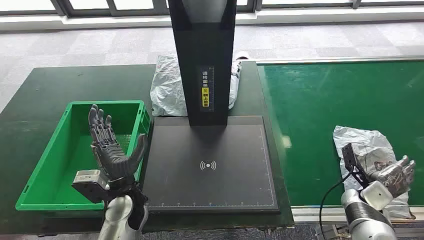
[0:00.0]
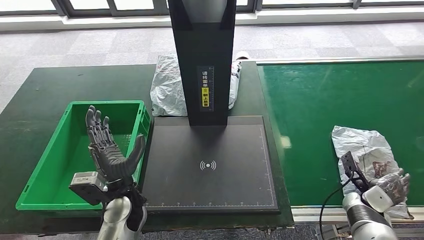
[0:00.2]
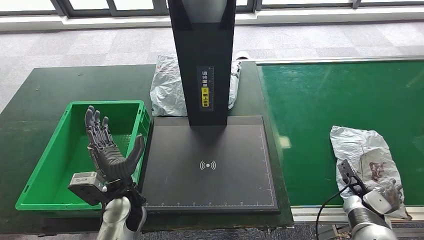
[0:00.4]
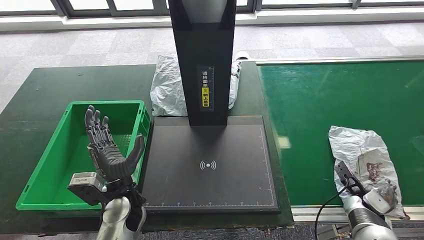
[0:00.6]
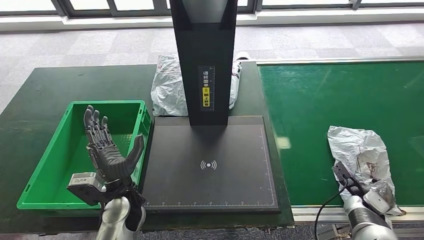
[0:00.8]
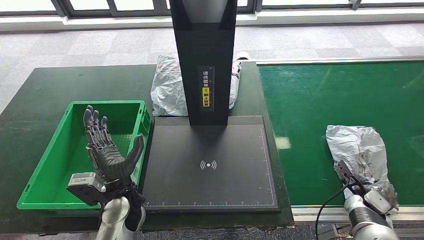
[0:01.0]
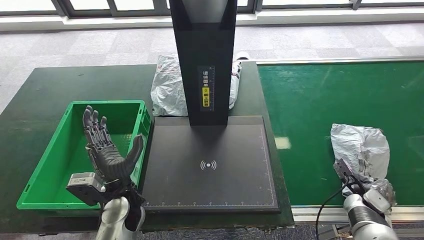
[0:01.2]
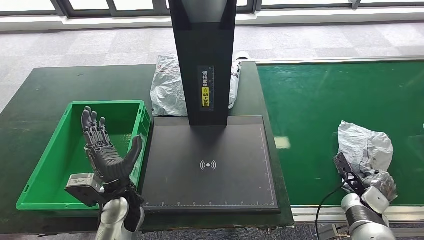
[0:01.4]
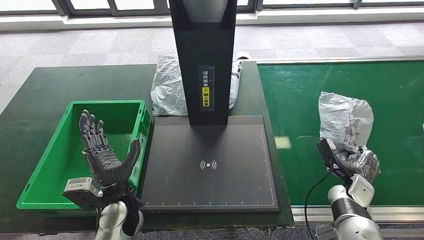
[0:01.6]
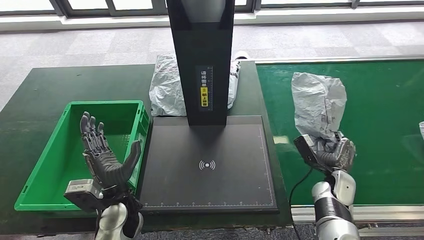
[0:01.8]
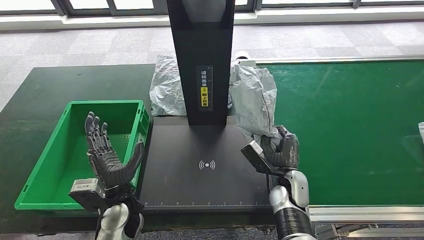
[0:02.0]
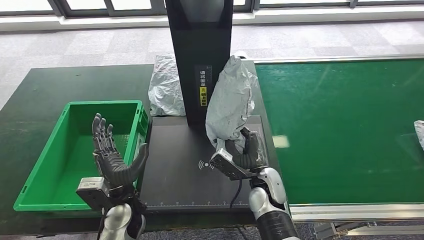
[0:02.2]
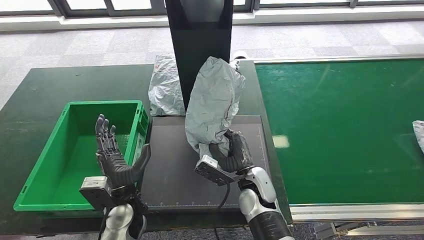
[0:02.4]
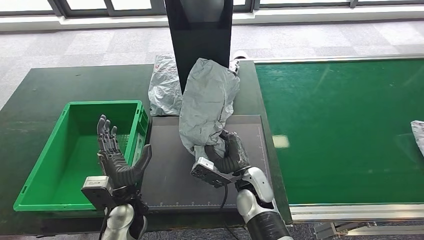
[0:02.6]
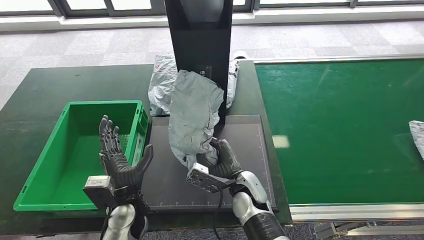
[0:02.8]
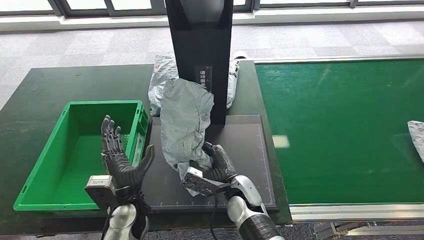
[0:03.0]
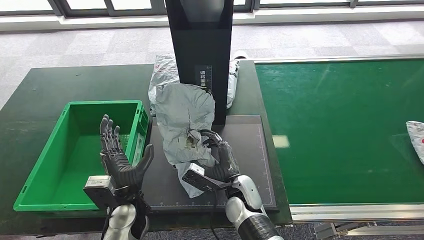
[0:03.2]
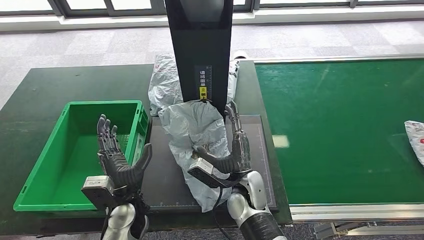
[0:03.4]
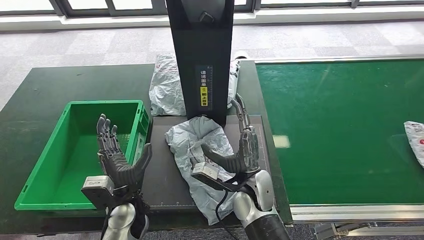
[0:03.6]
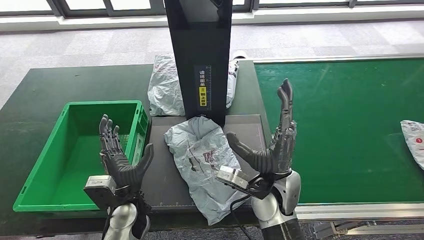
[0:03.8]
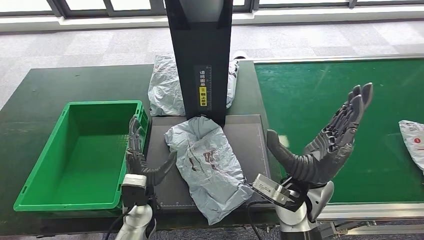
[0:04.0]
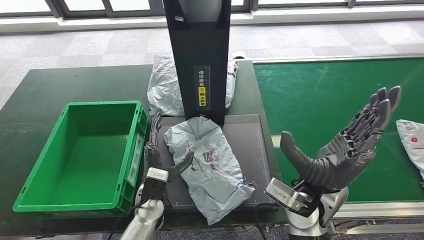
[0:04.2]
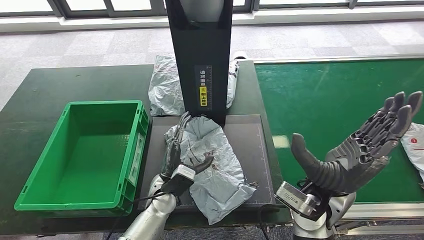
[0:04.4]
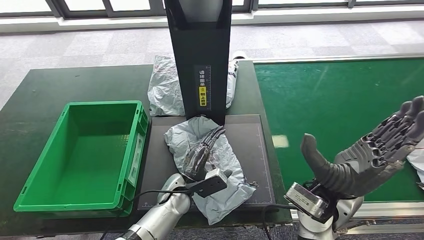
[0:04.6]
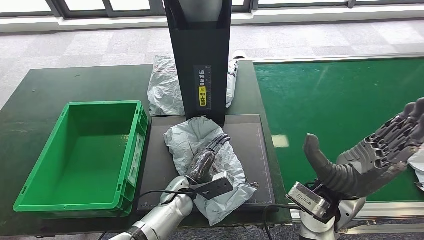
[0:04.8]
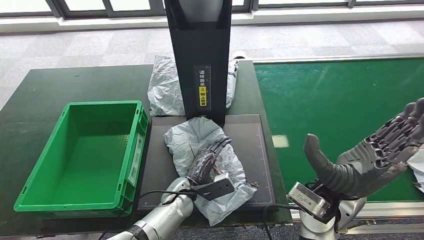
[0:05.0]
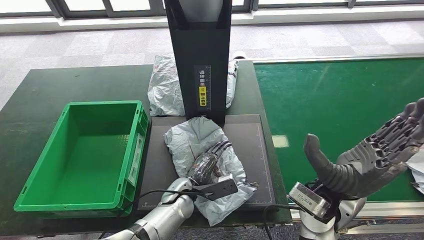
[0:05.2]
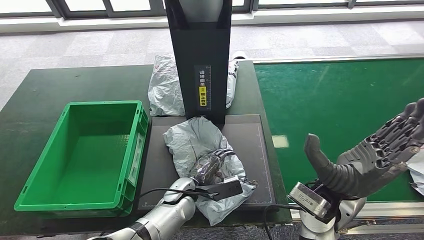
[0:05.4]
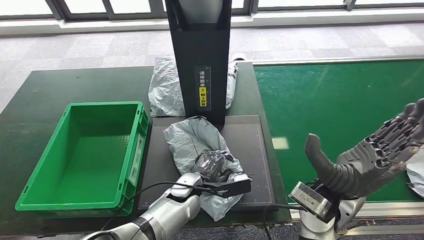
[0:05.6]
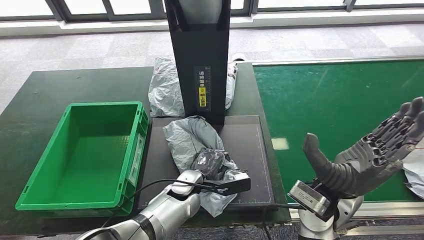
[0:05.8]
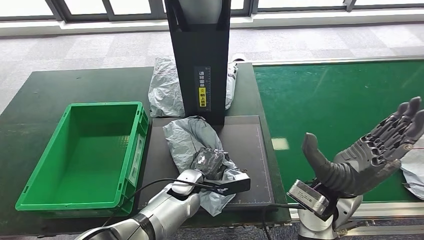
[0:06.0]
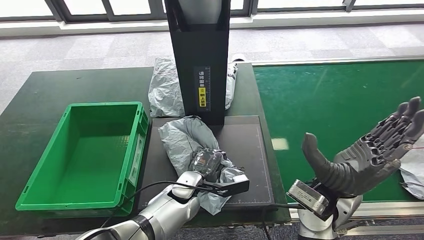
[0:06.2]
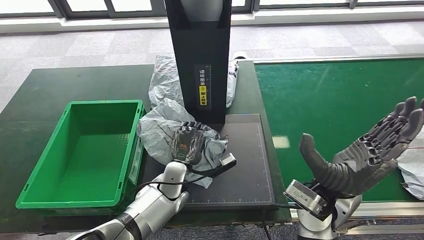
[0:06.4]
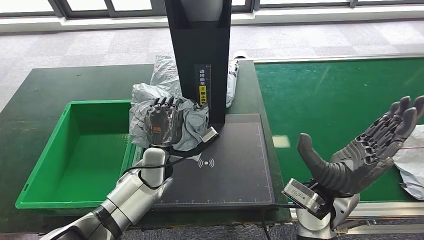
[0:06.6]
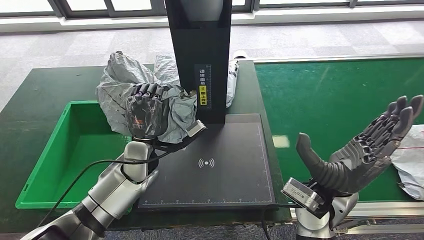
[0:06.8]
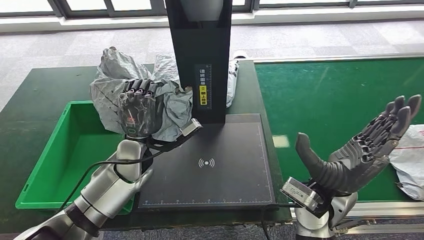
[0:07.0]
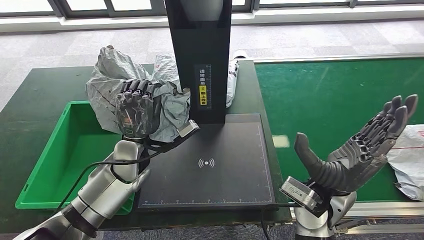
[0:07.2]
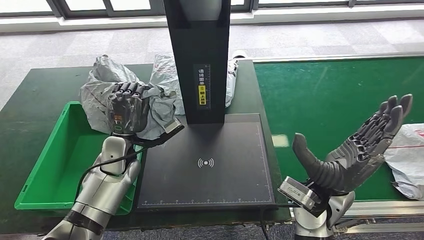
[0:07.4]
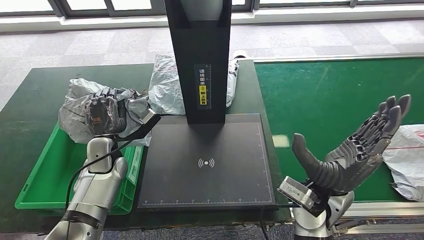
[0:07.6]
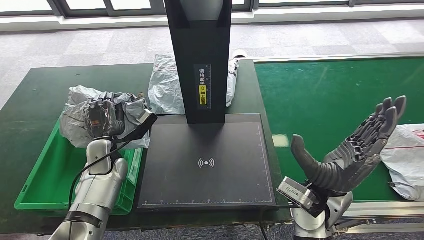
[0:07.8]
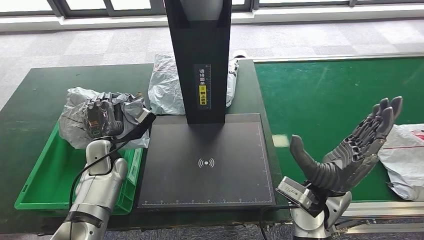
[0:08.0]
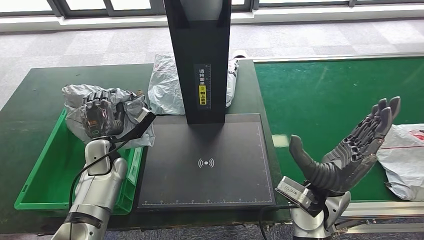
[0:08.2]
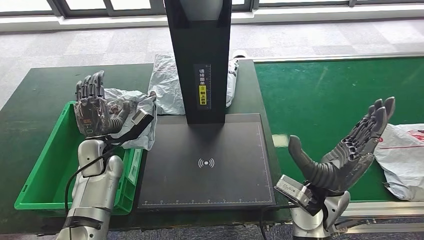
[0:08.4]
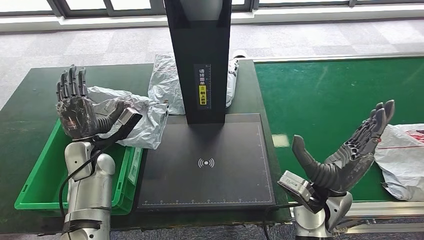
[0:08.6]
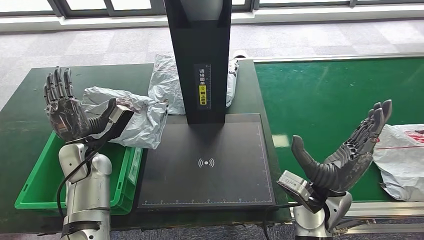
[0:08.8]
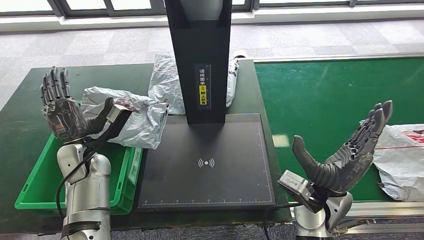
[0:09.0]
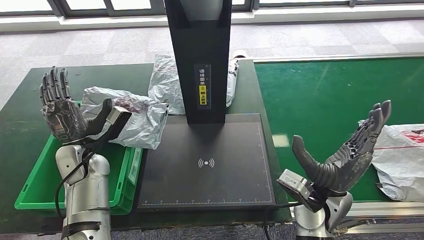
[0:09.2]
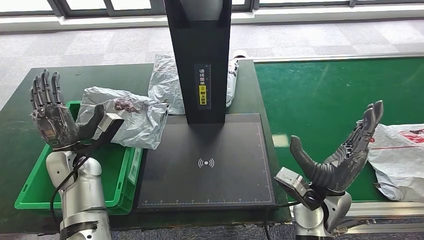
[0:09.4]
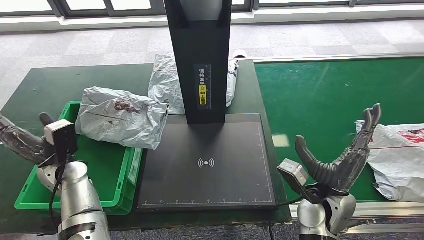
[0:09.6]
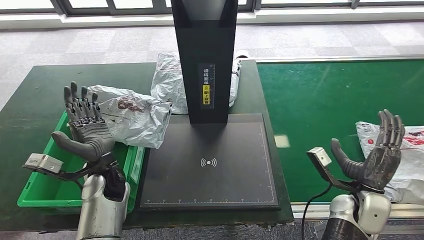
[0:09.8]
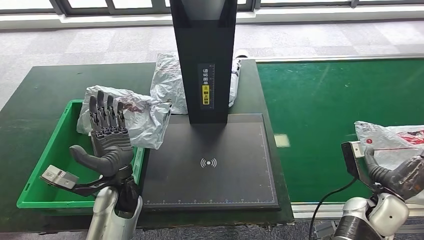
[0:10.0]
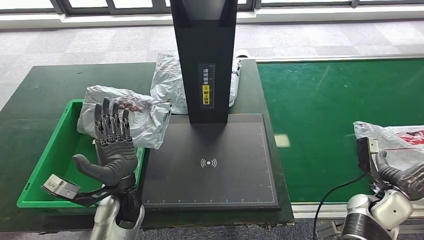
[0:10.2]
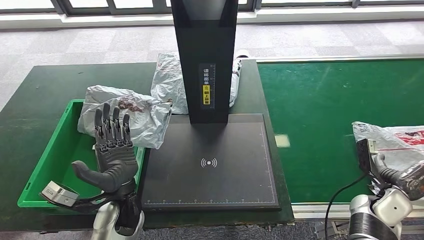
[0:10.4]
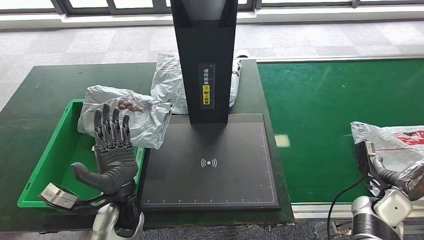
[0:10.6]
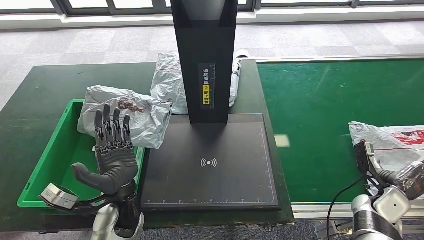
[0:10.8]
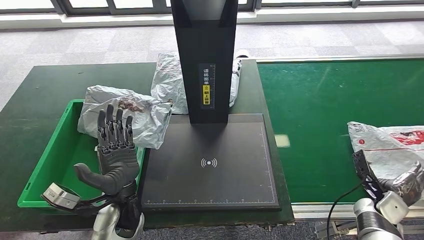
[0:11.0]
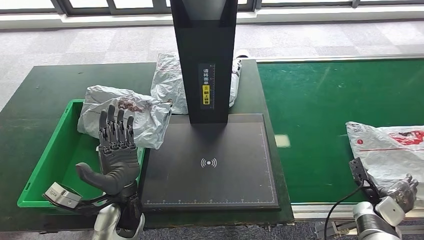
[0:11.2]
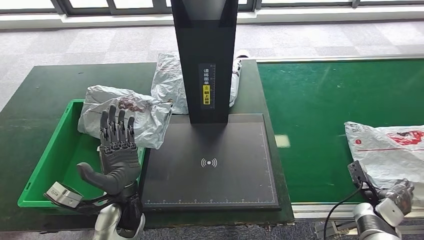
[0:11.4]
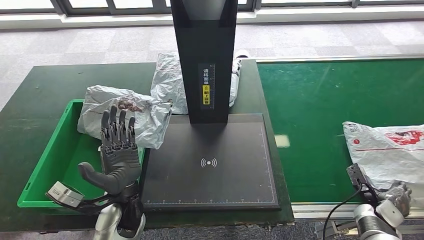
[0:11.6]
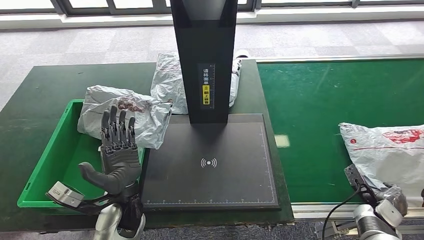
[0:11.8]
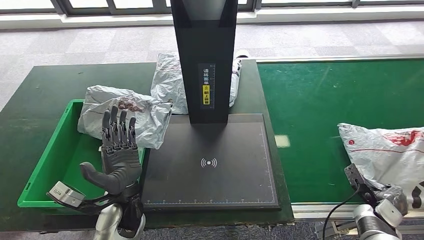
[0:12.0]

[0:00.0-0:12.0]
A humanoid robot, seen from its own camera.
Step, 0:00.0 to 0:01.8: Take the parcel off the conveyor belt.
Step, 0:02.2 to 0:04.2: Place the parcel onto the inbound machine.
Step, 0:04.6 to 0:06.8: Pick up the parcel from the inbound machine.
Step, 0:07.0 to 0:09.0: Put the parcel inside the courier box.
0:07.6 to 0:09.0: The left hand ends up approximately 5 cm from where it was.
0:10.4 to 0:12.0: The right hand moves downward, roughly 5 cm.

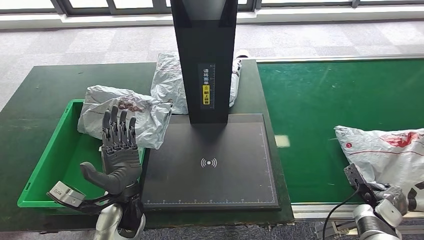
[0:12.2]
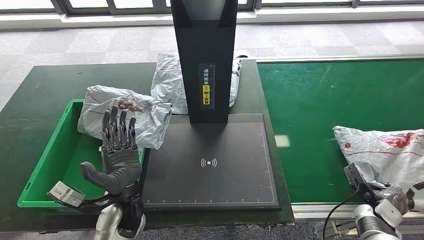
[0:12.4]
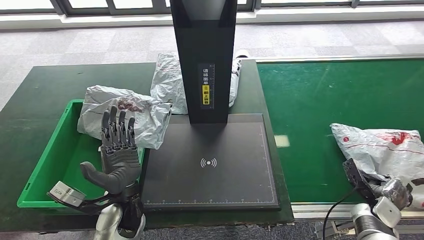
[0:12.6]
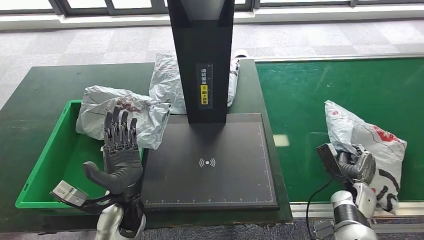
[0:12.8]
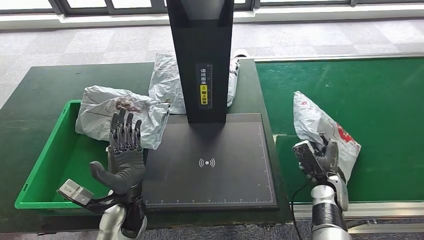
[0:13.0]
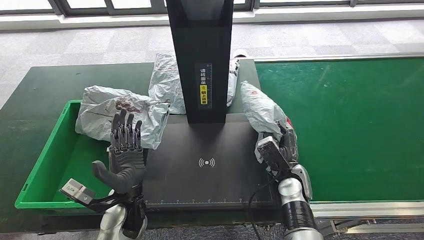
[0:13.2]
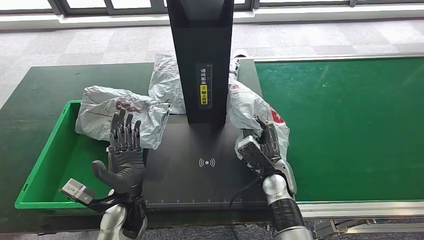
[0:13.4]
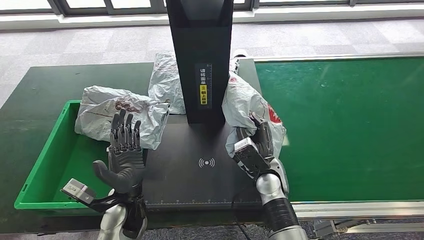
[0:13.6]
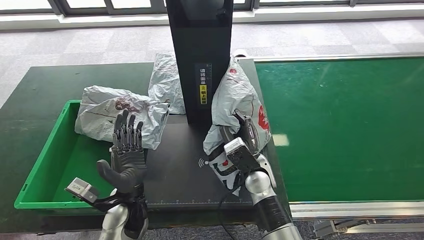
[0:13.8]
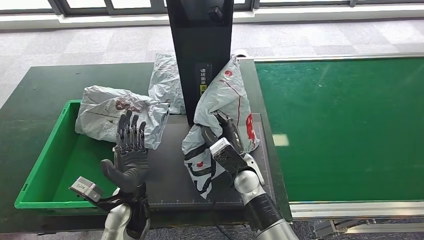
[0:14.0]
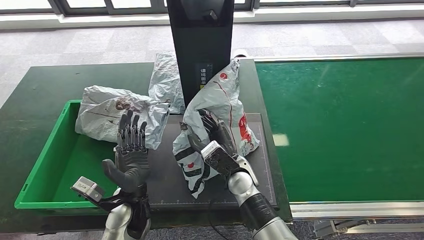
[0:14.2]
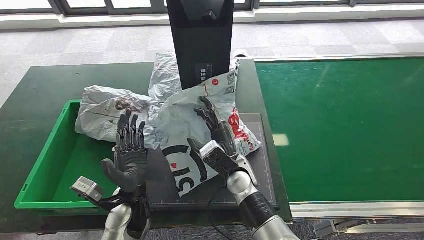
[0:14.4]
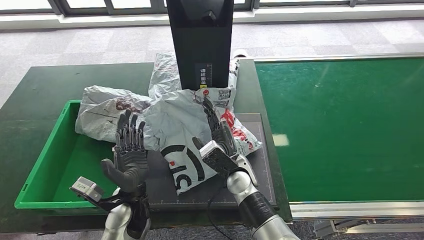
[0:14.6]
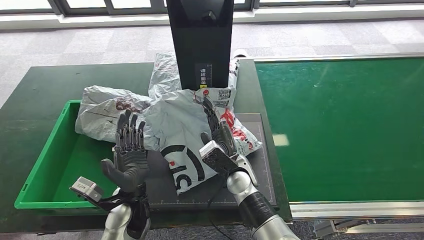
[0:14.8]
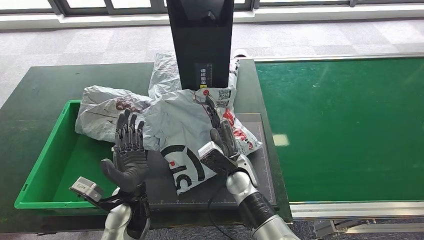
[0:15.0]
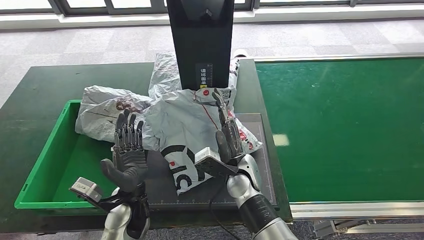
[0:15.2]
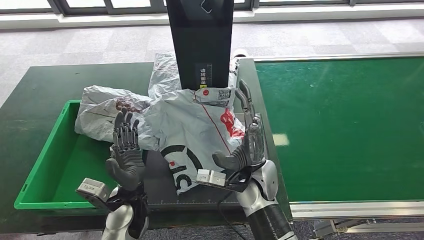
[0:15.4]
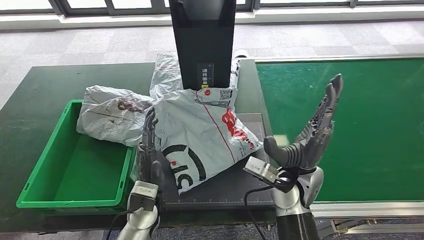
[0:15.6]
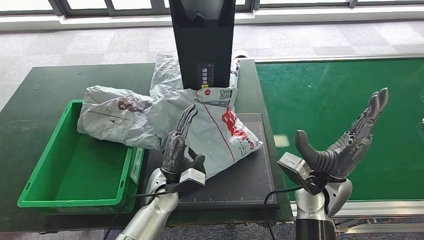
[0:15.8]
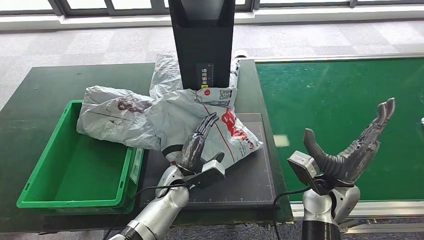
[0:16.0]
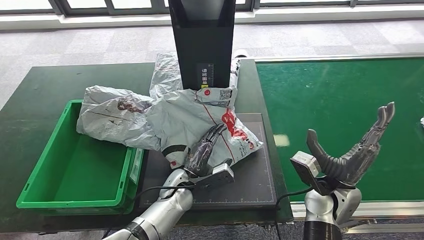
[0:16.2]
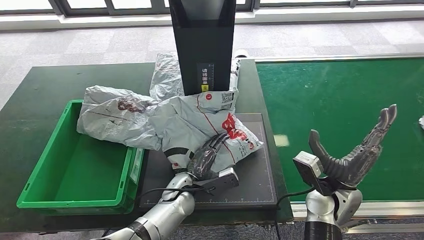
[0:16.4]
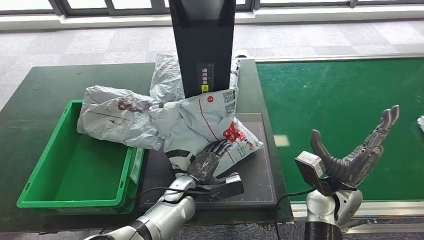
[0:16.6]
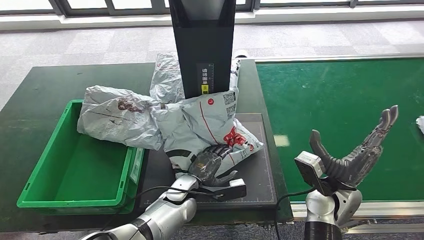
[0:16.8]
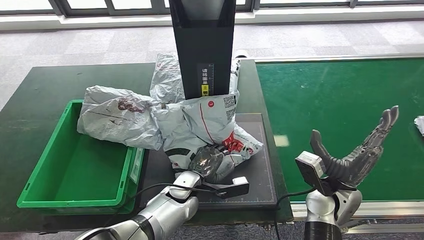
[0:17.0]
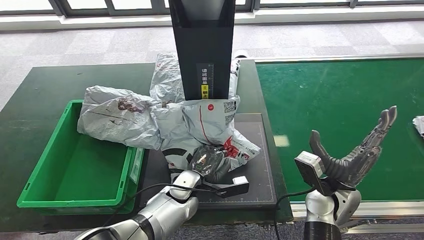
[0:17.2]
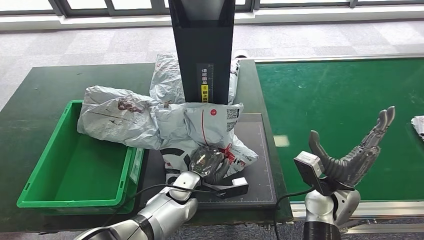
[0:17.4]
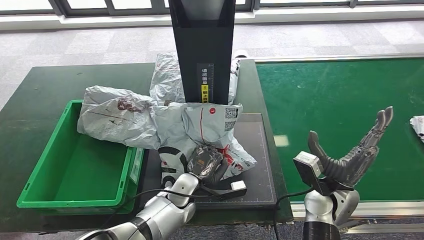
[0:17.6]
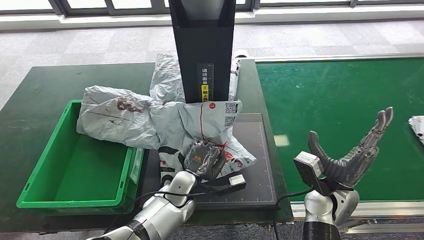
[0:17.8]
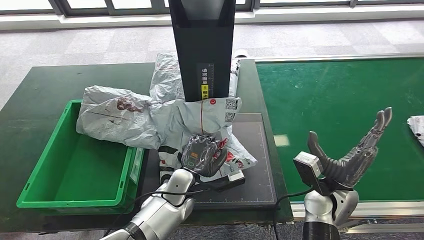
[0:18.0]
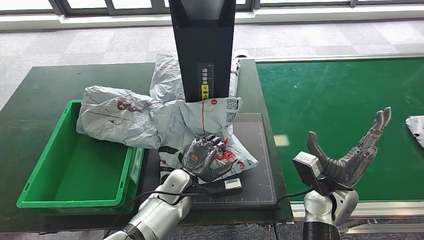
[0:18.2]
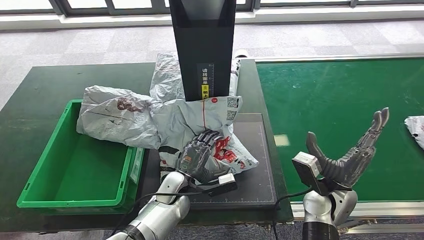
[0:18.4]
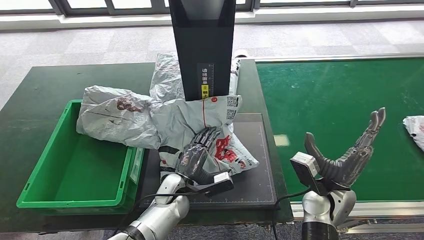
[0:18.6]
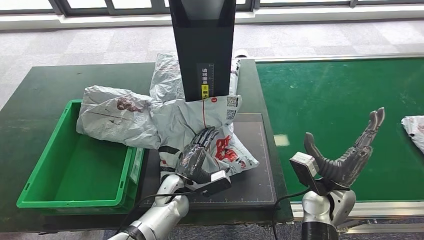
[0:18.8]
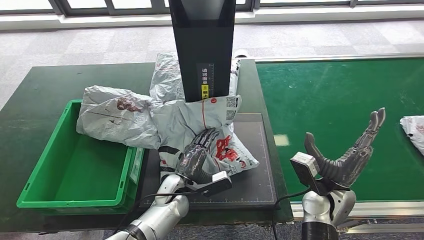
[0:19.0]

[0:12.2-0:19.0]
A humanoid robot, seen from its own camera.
Step, 0:12.2 to 0:14.0: Pick up the parcel from the conveyor belt.
Step, 0:14.2 to 0:15.8: Place the parcel onto the inbound machine.
0:13.6 to 0:15.0: The right hand travels to the left by roughly 10 cm.
0:15.0 to 0:16.2: The left hand shifts about 10 cm to the right and forward; the right hand goes approximately 20 cm to the right.
